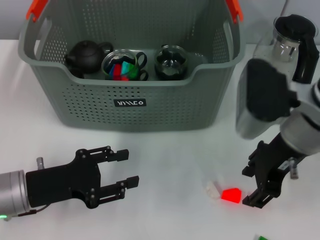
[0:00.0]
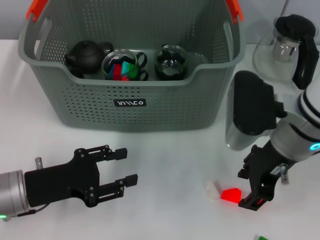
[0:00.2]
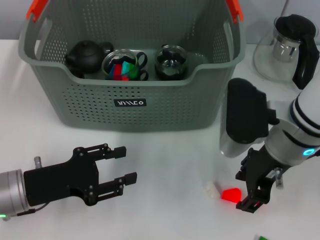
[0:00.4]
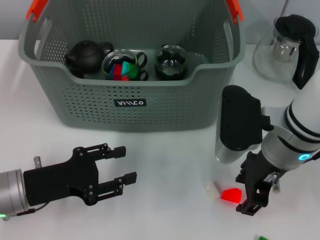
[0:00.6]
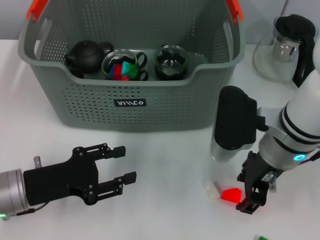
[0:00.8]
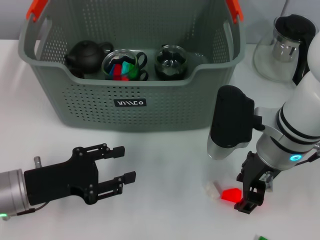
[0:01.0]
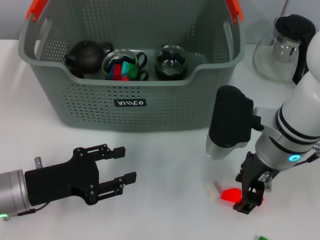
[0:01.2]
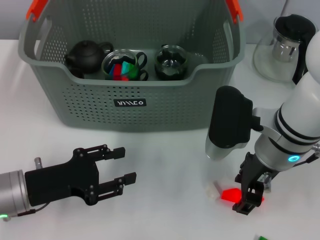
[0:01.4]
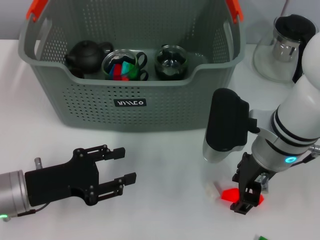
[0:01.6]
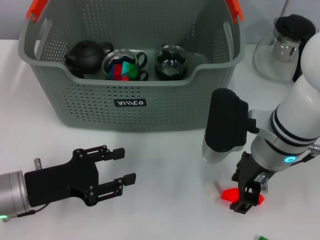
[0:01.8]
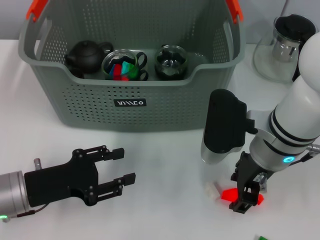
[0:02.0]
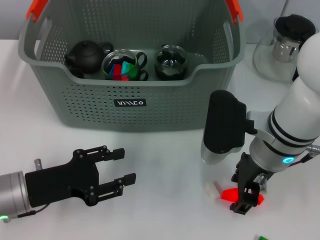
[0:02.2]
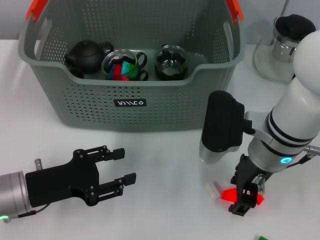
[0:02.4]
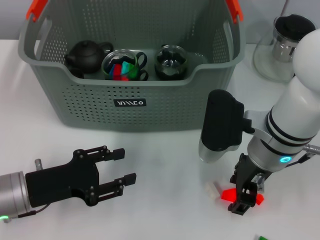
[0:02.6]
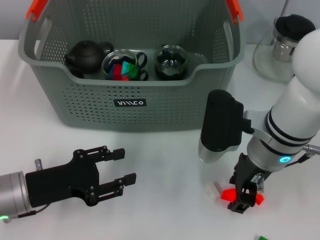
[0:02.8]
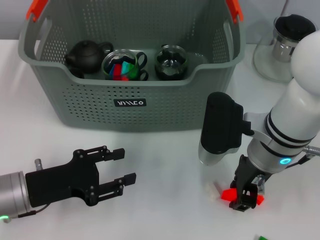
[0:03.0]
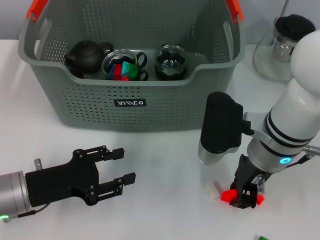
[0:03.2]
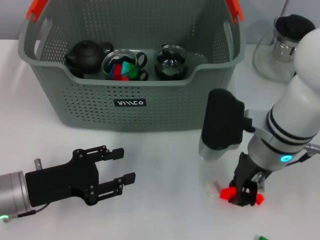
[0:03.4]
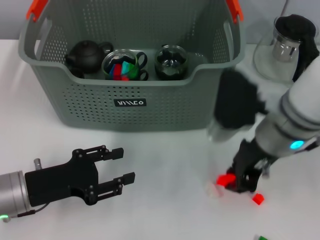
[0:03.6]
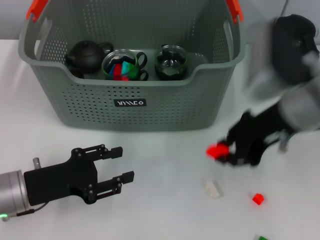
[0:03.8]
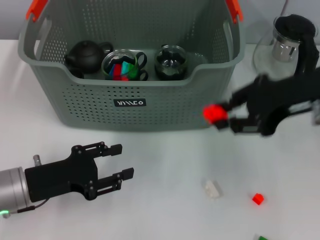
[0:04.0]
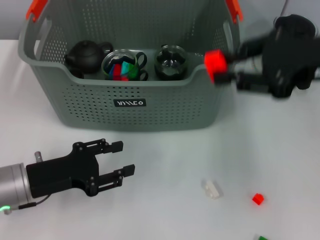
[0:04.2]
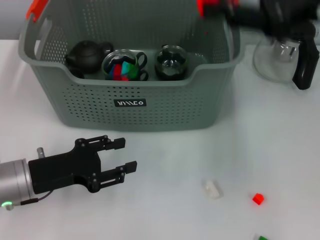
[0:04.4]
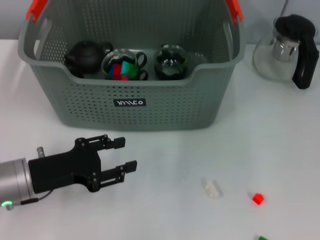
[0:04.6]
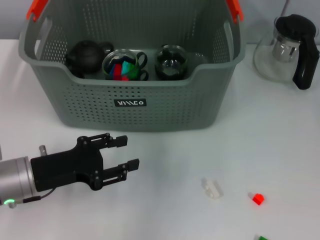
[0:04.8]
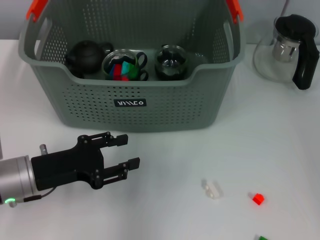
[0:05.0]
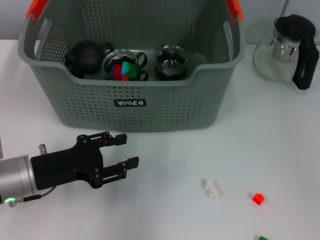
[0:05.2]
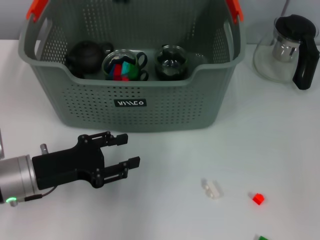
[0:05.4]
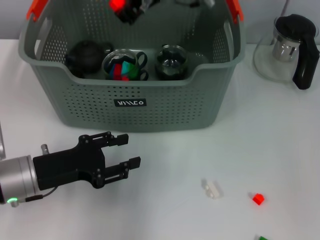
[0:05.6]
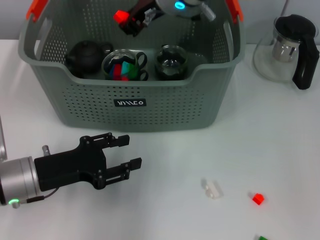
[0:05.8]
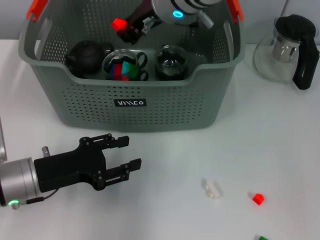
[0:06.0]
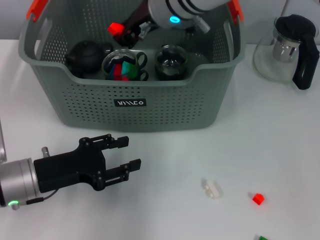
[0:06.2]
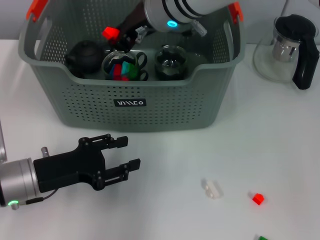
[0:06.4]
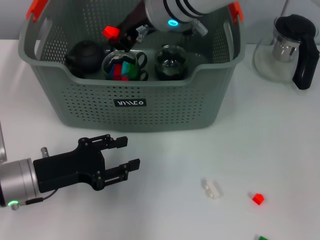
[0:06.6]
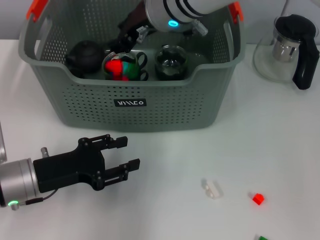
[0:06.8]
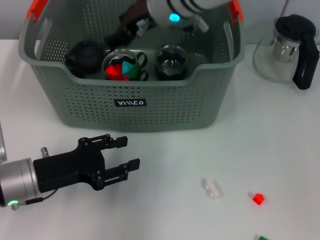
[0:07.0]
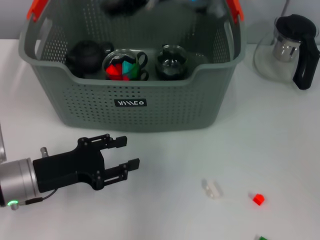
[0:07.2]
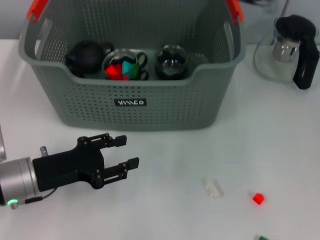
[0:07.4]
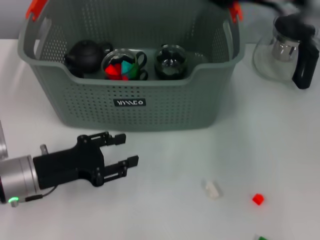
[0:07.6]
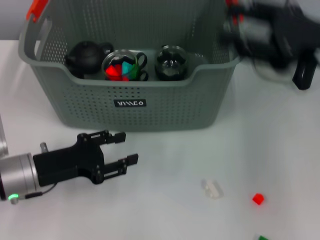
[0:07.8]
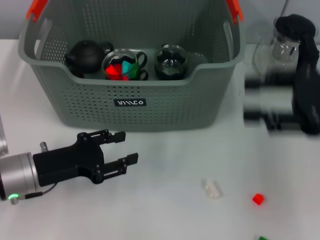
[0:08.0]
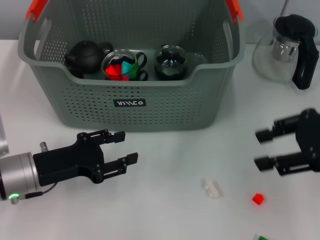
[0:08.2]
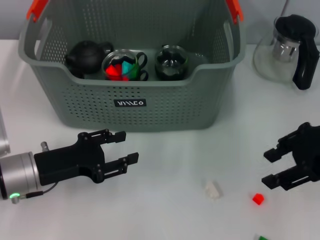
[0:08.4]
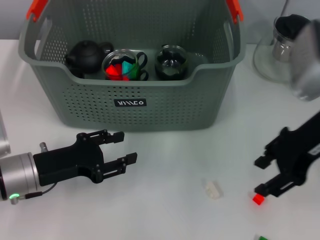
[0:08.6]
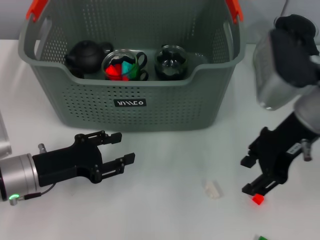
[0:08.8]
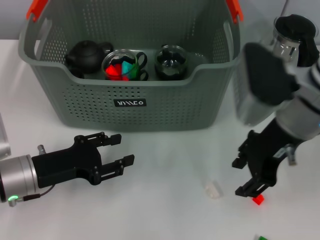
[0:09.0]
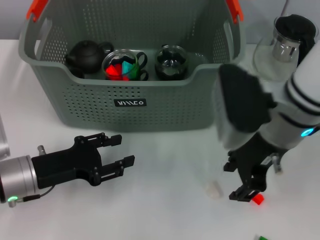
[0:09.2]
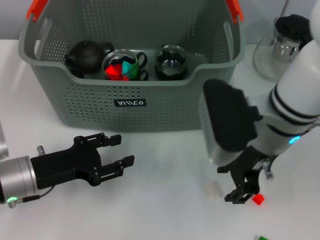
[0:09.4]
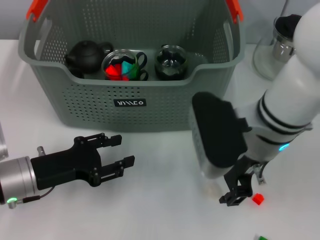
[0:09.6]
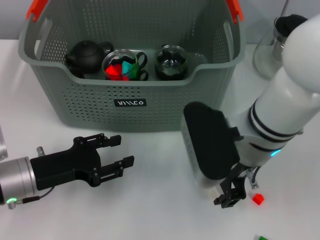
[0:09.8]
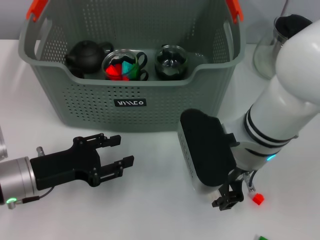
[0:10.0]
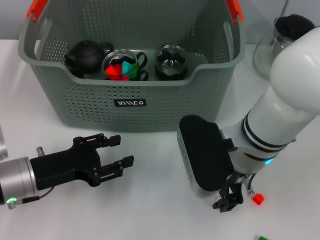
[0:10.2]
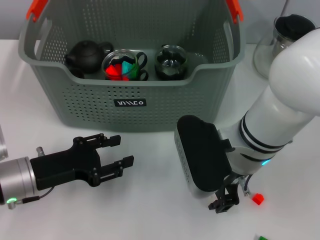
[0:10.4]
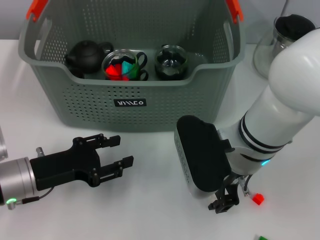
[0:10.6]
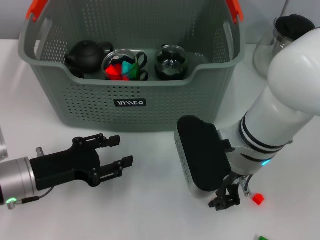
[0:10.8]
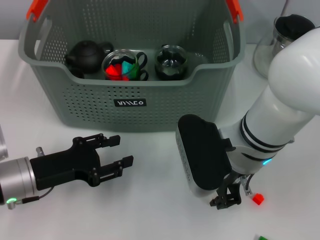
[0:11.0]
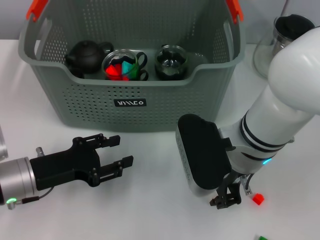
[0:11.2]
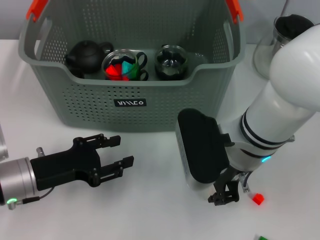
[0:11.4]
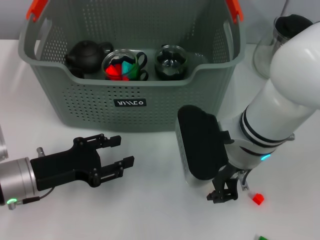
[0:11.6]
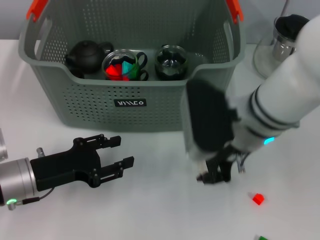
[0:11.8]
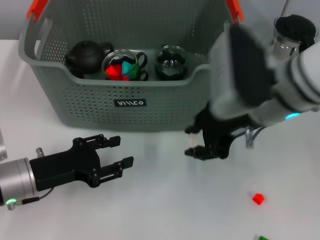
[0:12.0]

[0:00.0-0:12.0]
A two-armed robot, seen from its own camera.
Task of the whole recording: pick up the teacup on the table and place it into the storage bin, pick up the block on the table and place it into the storage bin.
Step, 0:00.0 to 0:03.2: Grasp the orange block with right gripper.
Step, 0:03.6 to 0:07.2: Place the orange block in the storage box with right gripper.
Step, 0:07.4 to 0:11.2: Grasp the white block with right gripper.
0:00.0 to 0:01.6: The right gripper moves approximately 5 cm.
0:01.6 to 0:03.0: The two grippers keep their place.
0:03.0 to 0:04.4: The right gripper travels upward and to the right by about 20 cm, and closes its fingers.
0:04.4 to 0:06.0: The right gripper is displaced to the left and forward by approximately 25 cm.
0:06.0 to 0:07.6: The right gripper travels to the right and backward by some 20 cm.
0:07.6 to 0:09.0: The right gripper heads downward, covering some 5 cm, and reaches roughly 10 cm to the right, then returns.
0:09.0 to 0:10.4: The right gripper travels to the left and downward by roughly 10 cm.
0:10.4 to 0:12.0: The right gripper goes some 5 cm upward.

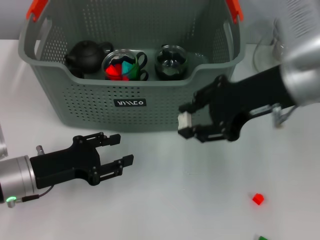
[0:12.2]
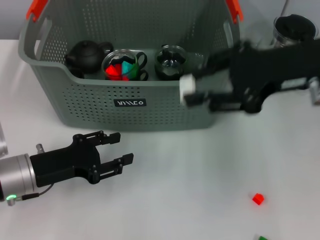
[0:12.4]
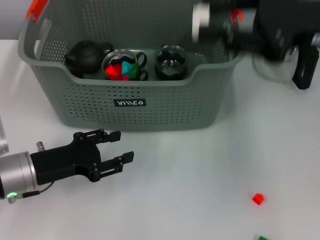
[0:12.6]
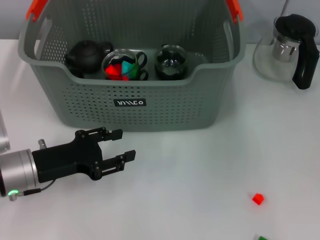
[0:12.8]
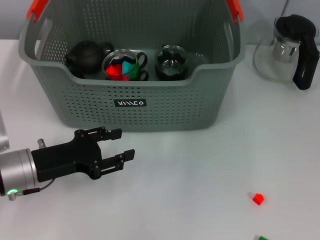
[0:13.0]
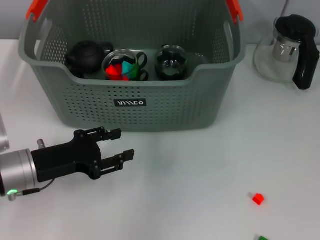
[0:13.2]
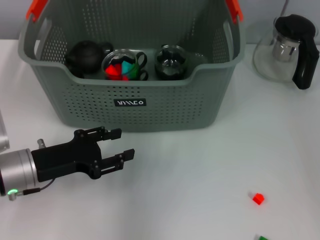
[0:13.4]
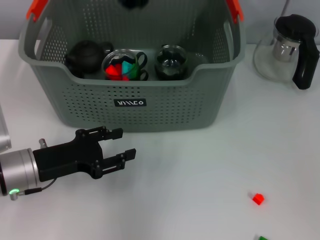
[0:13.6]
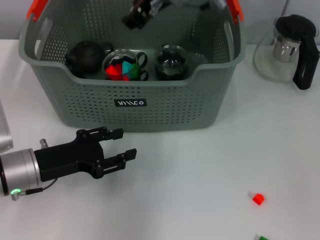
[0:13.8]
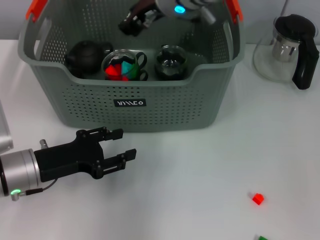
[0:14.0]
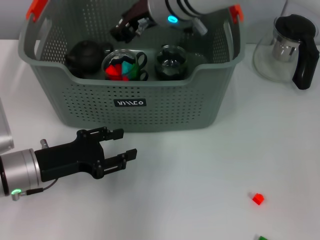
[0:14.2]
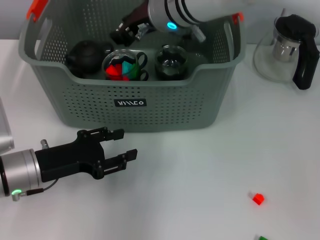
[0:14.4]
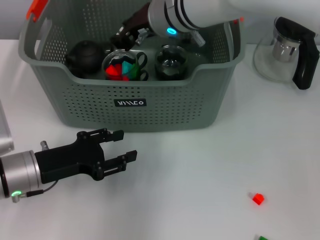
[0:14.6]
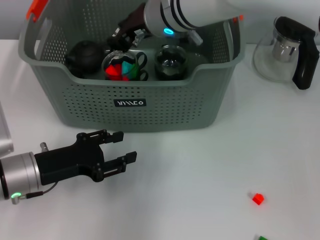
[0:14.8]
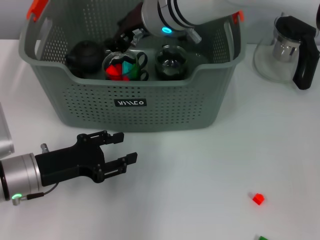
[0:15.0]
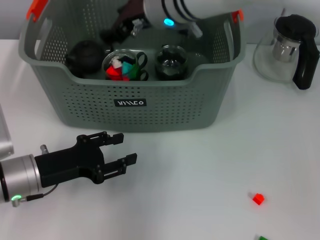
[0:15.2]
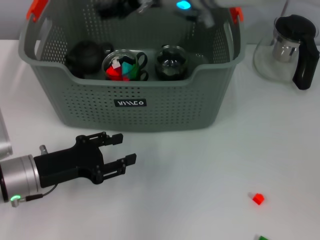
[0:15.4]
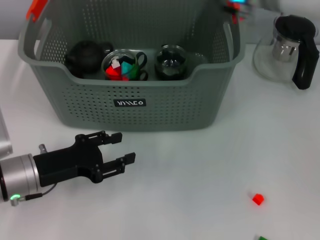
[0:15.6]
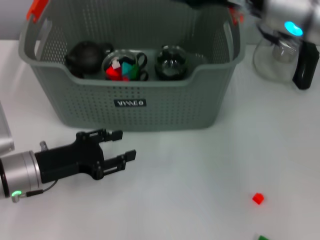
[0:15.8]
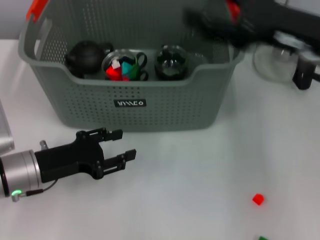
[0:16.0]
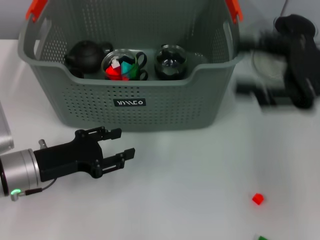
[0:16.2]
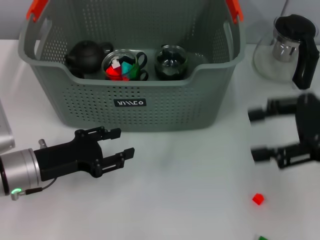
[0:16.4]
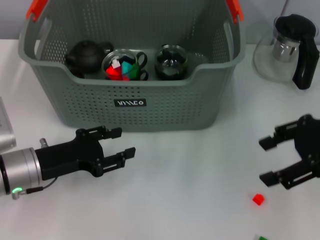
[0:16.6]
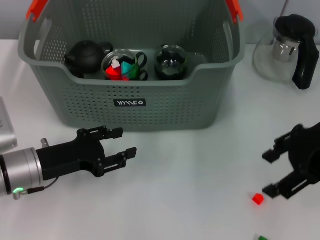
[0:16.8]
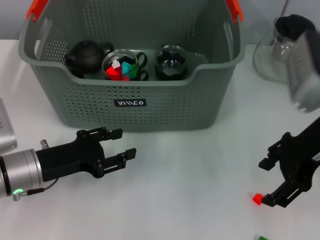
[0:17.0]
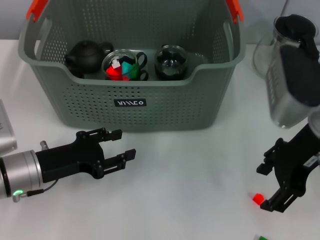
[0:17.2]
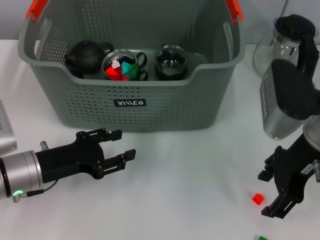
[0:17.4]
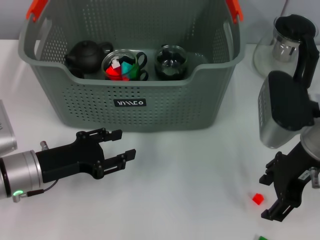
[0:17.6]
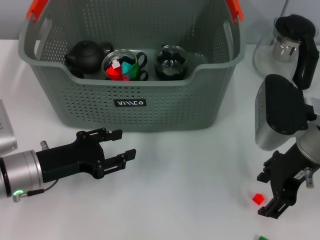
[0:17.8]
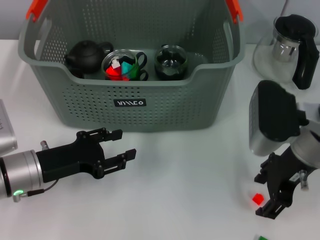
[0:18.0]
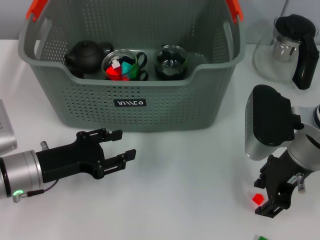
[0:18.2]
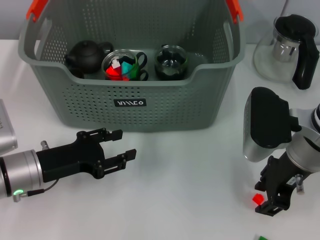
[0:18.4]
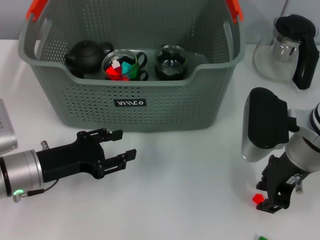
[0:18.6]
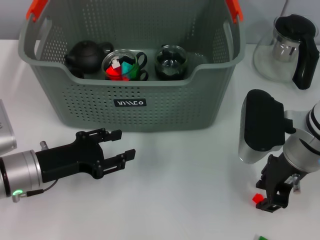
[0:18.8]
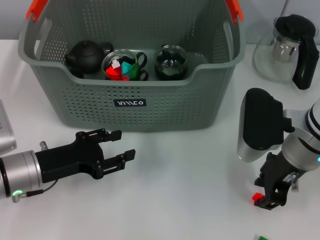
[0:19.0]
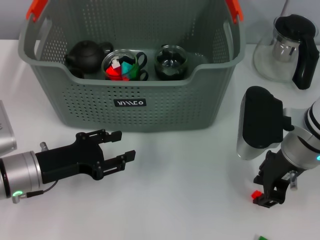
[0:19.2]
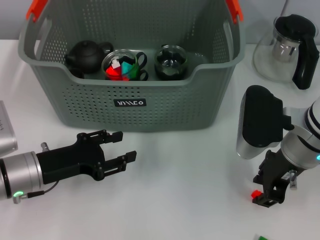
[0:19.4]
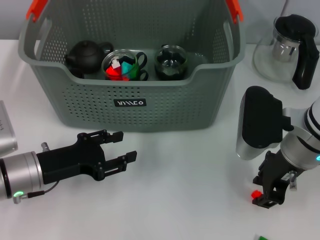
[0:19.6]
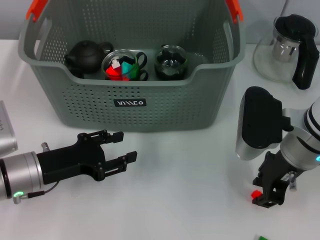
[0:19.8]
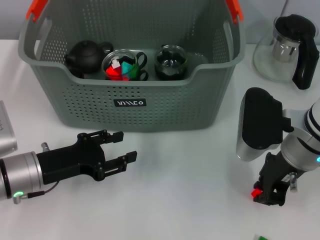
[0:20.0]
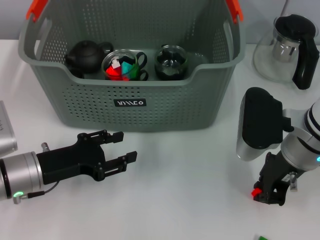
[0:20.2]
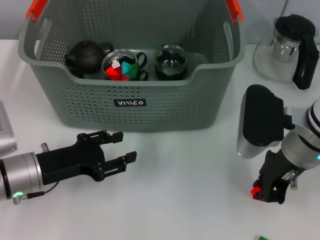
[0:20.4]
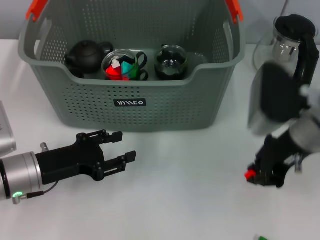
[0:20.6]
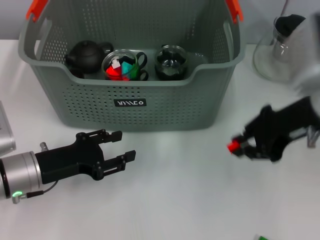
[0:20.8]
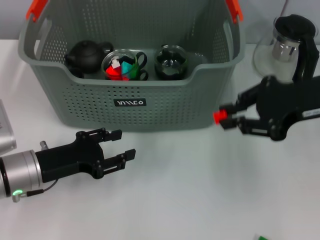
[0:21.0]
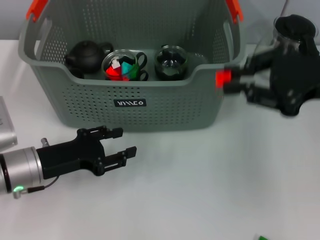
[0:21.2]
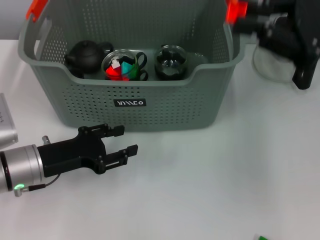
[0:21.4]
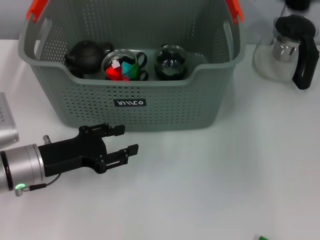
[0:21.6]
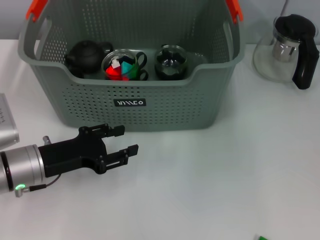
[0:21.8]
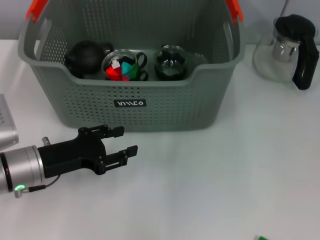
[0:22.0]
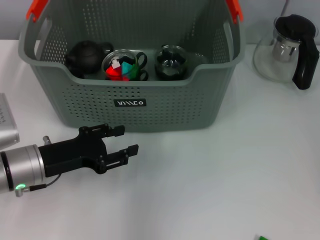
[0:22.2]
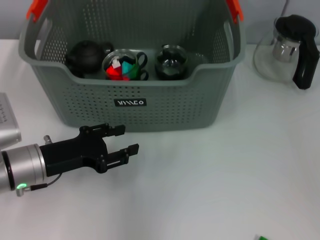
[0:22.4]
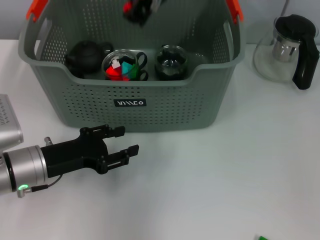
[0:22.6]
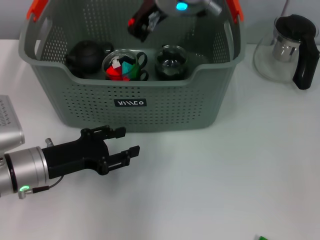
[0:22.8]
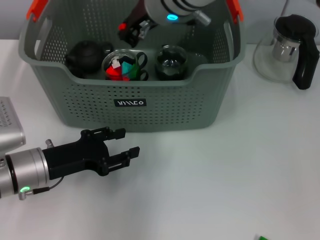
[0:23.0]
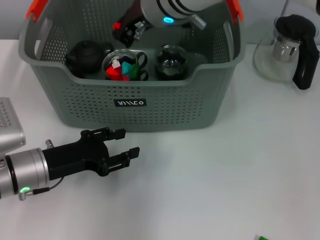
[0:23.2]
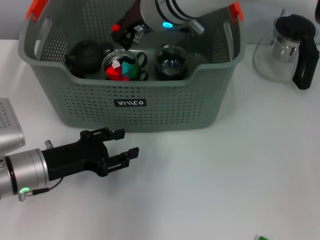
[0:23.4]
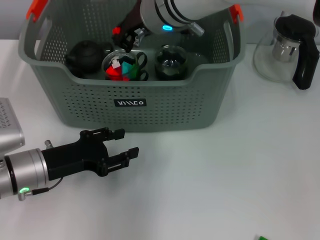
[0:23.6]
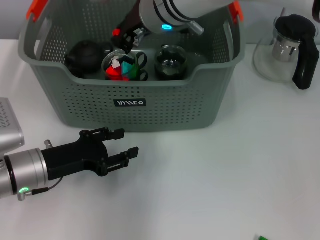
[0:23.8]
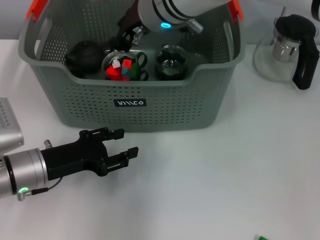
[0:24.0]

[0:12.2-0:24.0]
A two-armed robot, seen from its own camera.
Task of the whole recording: pick up the teacup on the table and place it into the storage bin, pick up the block on the table and place it into the storage bin.
Step, 0:12.2 to 0:15.4: Place the white block in the storage box with right gripper.
Step, 0:15.6 to 0:20.2: Grasp the orange block with right gripper.
0:12.2 to 0:13.6: The right gripper travels to the left, forward and upward by some 20 cm.
0:13.6 to 0:15.2: The right gripper is displaced downward by roughly 5 cm.
0:15.2 to 0:16.6: The right gripper moves to the right and backward, roughly 30 cm.
0:16.6 to 0:18.2: The right gripper travels to the left and downward by about 10 cm.
0:18.2 to 0:19.6: The right gripper closes up.
0:19.6 to 0:21.0: The right gripper moves upward and to the right, approximately 10 cm.
0:21.0 to 0:22.6: The right gripper travels to the left and forward by approximately 25 cm.
0:22.6 to 0:24.0: The right gripper is displaced downward by approximately 5 cm.
